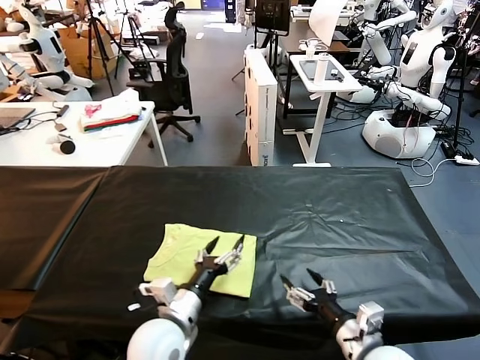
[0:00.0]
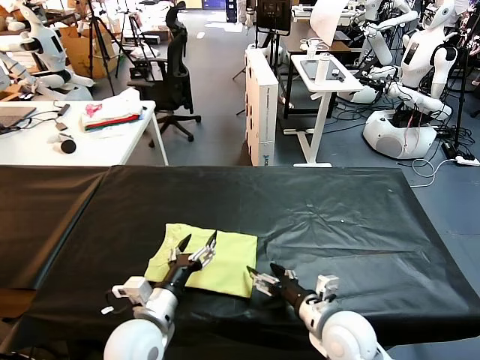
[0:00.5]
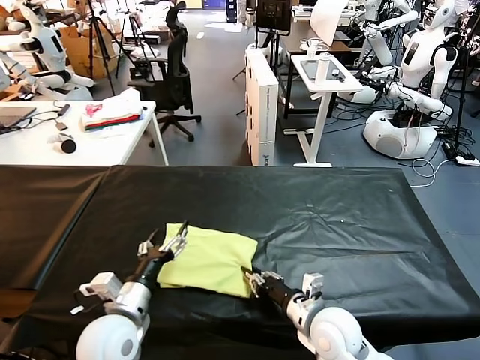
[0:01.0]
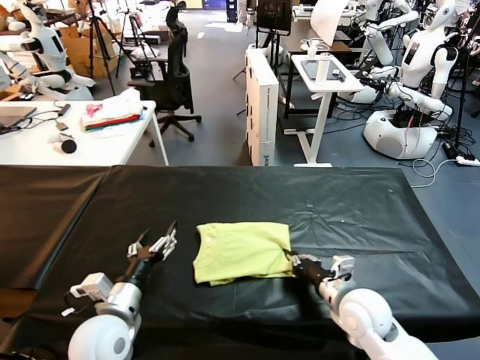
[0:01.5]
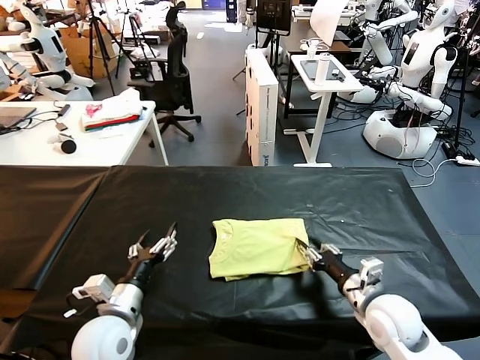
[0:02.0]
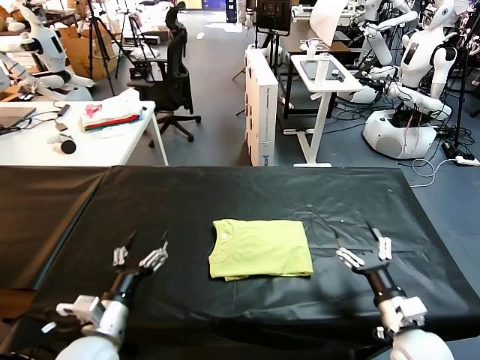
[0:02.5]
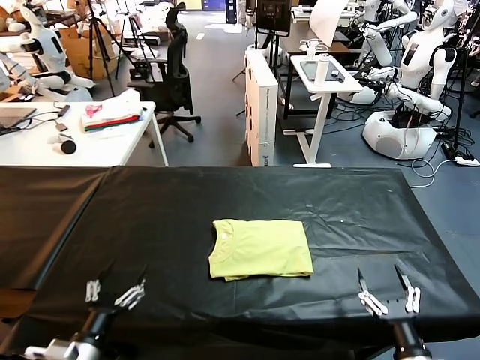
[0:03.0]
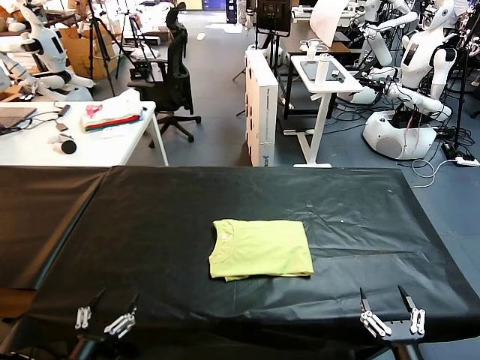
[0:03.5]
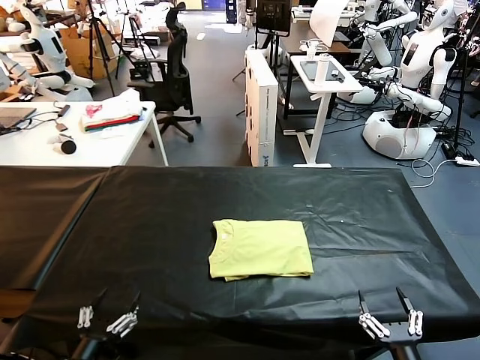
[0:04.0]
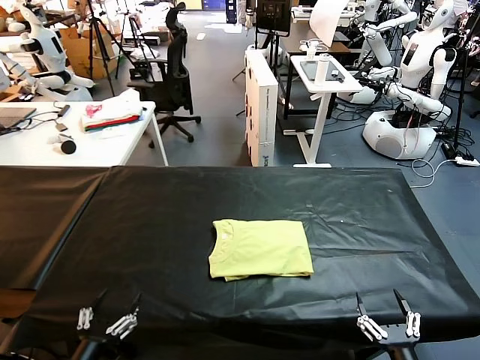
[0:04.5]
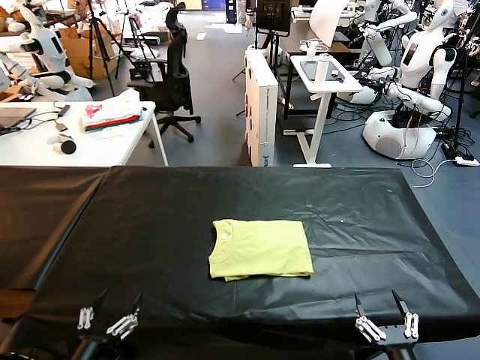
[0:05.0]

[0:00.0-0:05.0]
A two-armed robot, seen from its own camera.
Task of the whole recording: fold and organize the clothes.
Step, 0:00.0 to 0:02.0: Drag the clothes to the center of the table.
0:00.0 to 0:02.5: The right gripper goes some 5 cm to the right, and closes, then opens again, while the left gripper moves to the left, approximately 10 cm.
0:02.5 to 0:05.0: The right gripper shifts roughly 15 cm backward. Meanwhile the left gripper goes about 15 cm backward and to the left.
